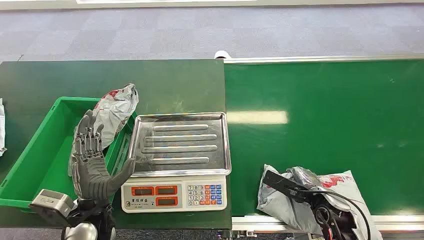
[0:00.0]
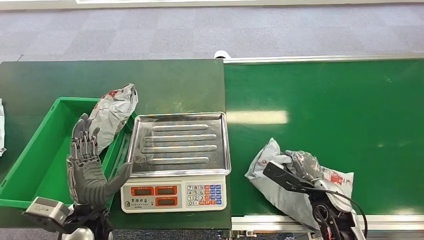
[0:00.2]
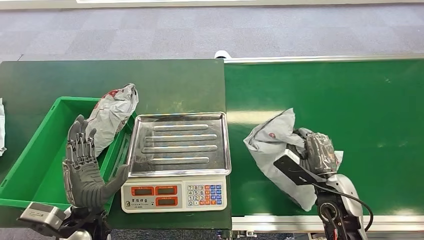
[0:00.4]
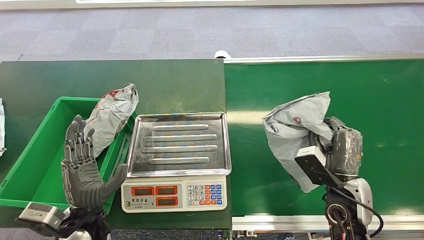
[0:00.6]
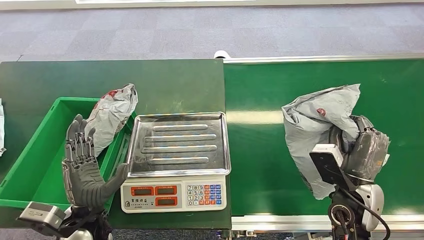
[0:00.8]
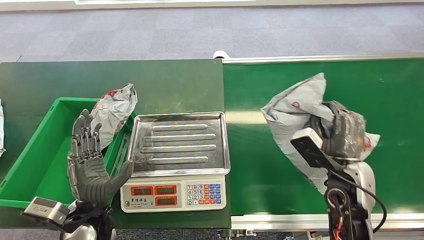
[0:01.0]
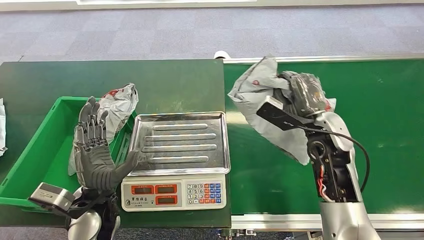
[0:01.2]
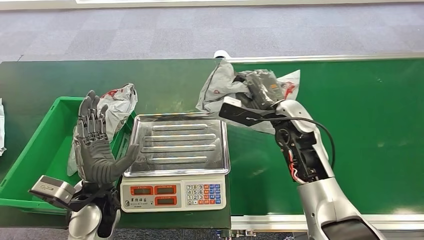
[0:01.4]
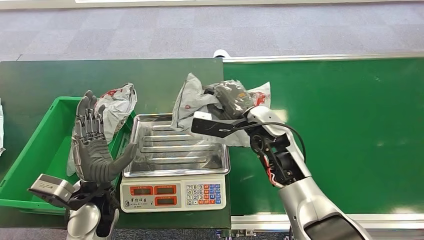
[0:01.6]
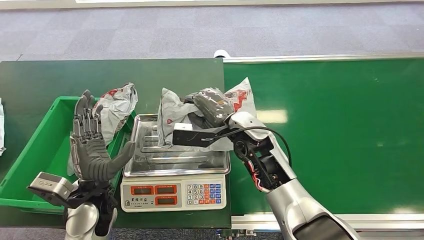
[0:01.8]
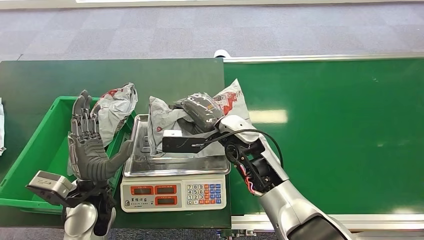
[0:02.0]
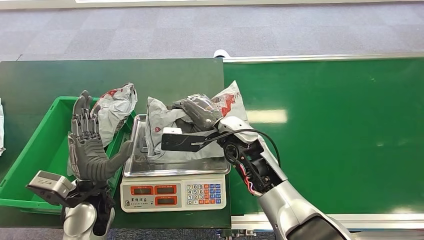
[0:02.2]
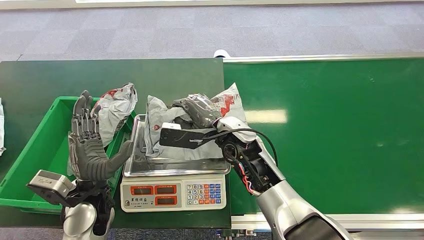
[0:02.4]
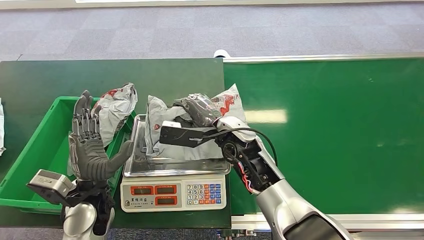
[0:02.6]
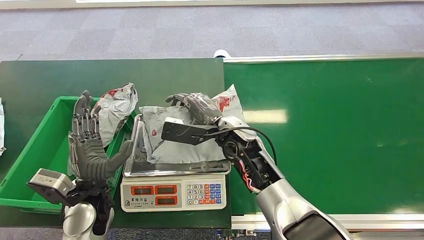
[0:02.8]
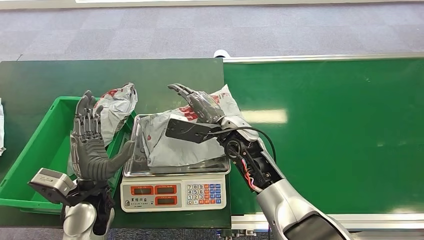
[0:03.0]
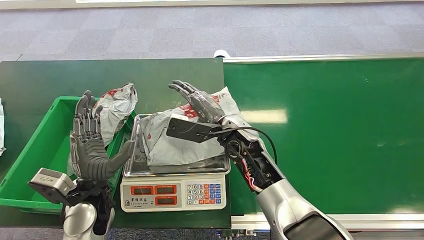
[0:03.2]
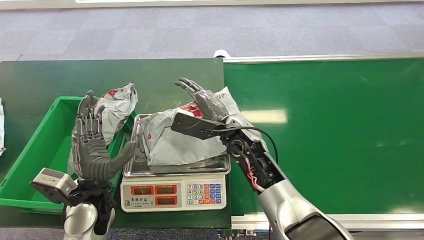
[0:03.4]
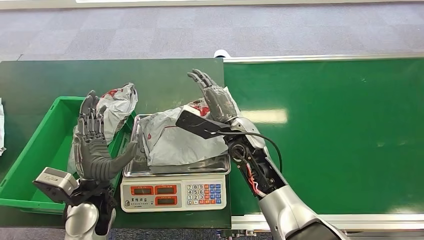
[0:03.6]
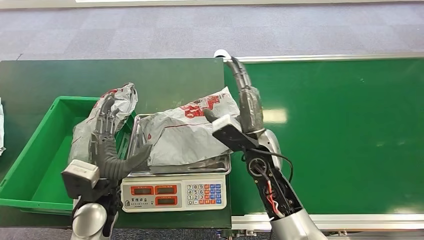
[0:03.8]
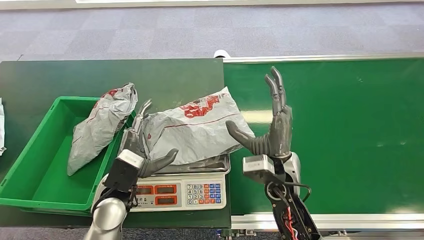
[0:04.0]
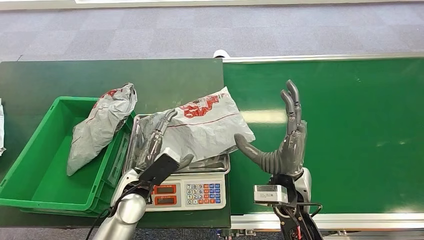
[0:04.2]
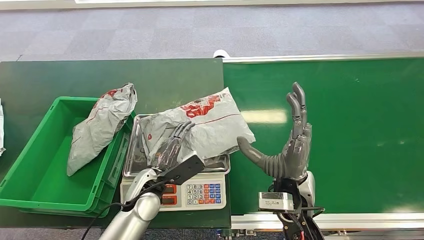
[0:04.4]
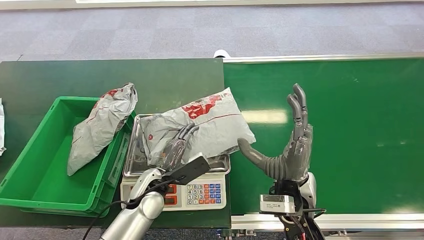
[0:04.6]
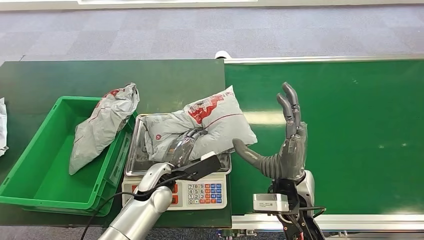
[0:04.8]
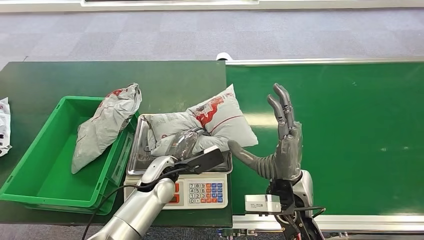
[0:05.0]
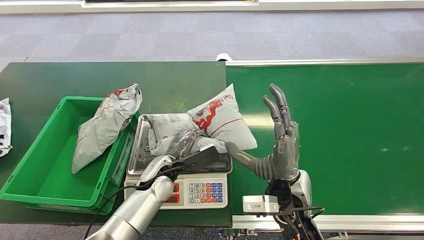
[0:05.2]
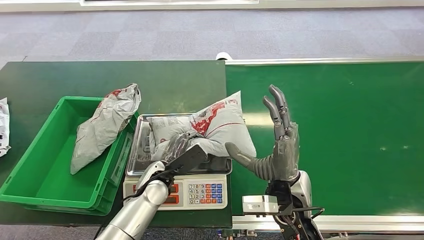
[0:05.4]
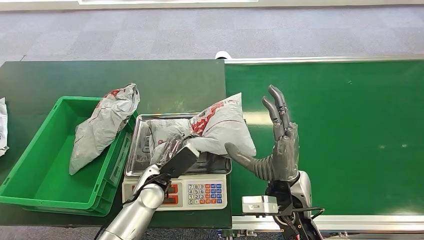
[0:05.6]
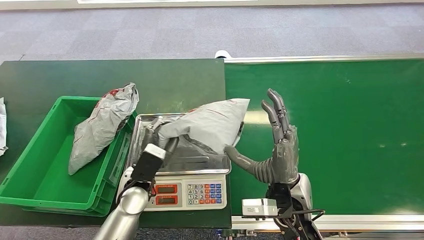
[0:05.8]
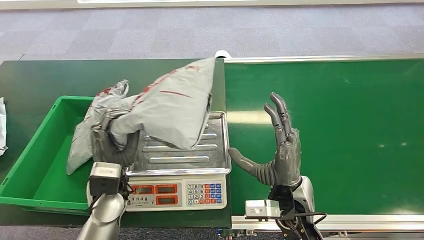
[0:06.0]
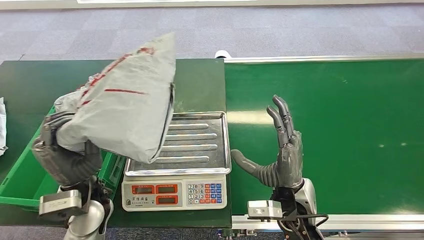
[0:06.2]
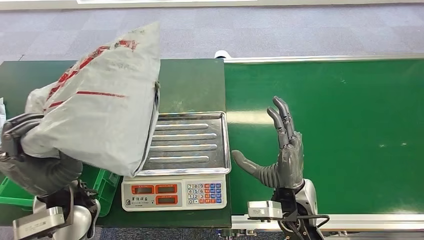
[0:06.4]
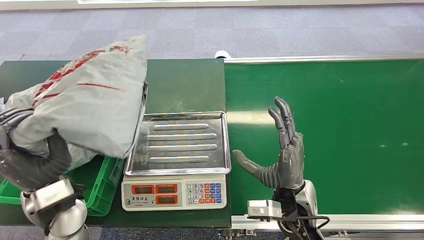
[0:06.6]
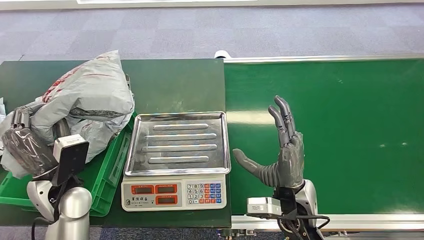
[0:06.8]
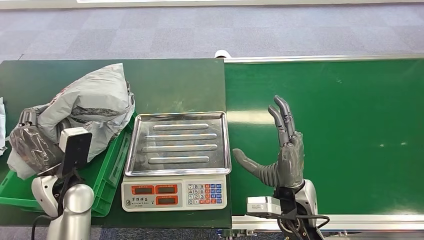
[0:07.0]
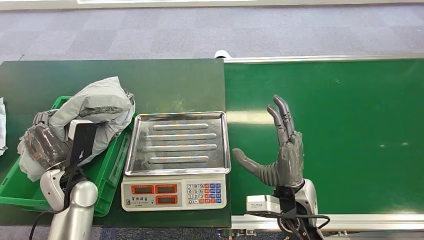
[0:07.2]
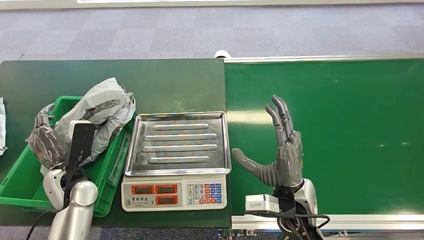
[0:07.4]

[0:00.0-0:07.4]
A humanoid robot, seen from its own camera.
Task of the whole recording: Weigh the package on the weighing device and place it in the left basket.
Step, 0:00.0 to 0:01.0: Pick up the package from the conveyor belt.
Step, 0:01.8 to 0:03.4: Place the package onto the inbound machine.
Step, 0:05.6 to 0:06.2: Pick up the package from the inbound machine.
Step, 0:06.8 to 0:07.4: Place the package into the parcel locker.
0:03.0 to 0:04.4: The left hand is displaced to the right and downward by roughly 10 cm. The right hand goes roughly 15 cm backward and to the right.
0:06.0 to 0:07.4: The left hand moves to the left, roughly 10 cm.

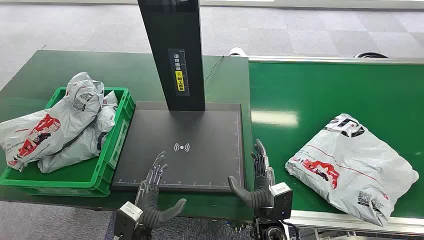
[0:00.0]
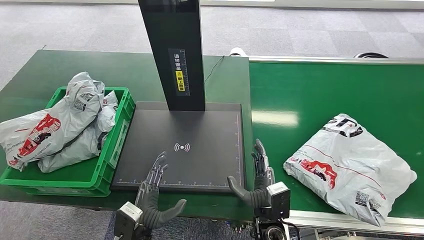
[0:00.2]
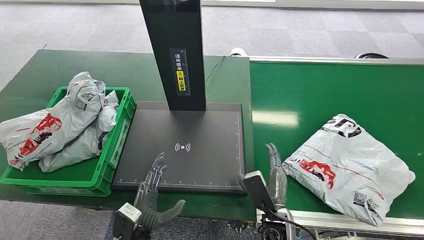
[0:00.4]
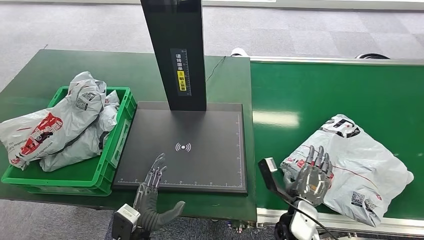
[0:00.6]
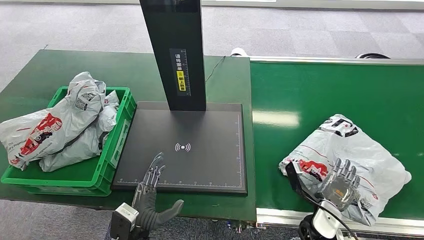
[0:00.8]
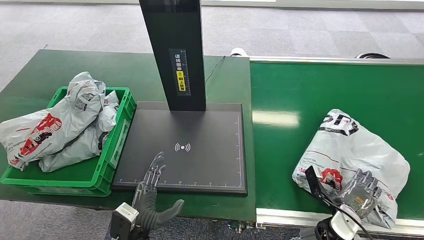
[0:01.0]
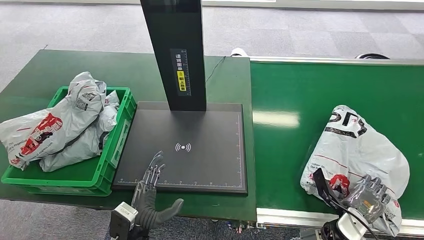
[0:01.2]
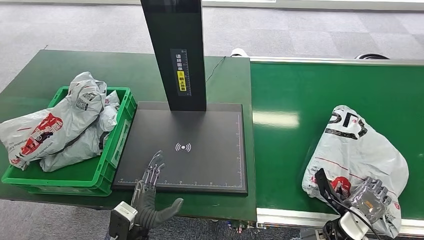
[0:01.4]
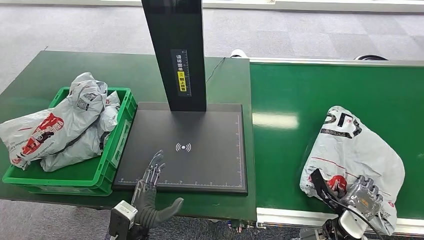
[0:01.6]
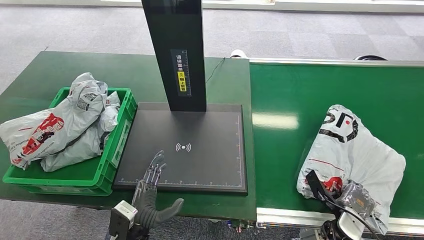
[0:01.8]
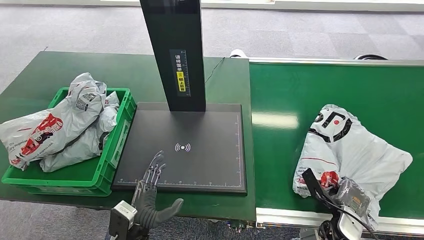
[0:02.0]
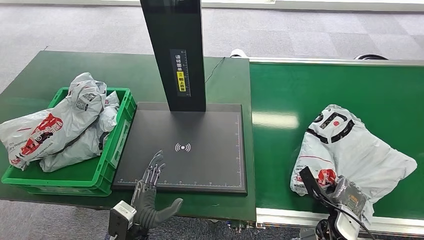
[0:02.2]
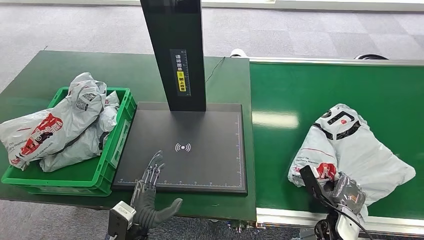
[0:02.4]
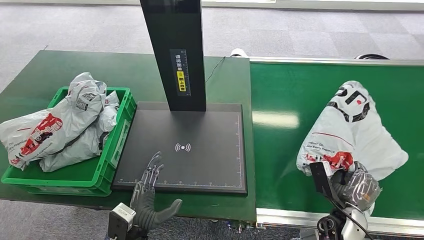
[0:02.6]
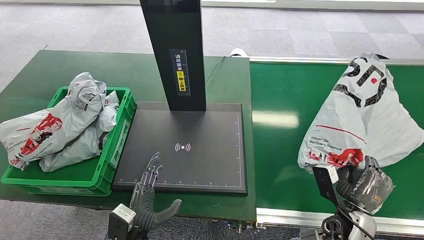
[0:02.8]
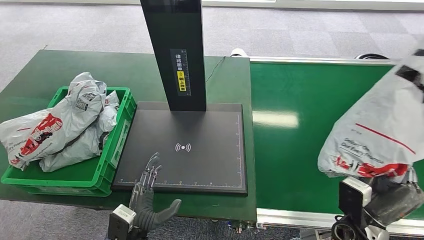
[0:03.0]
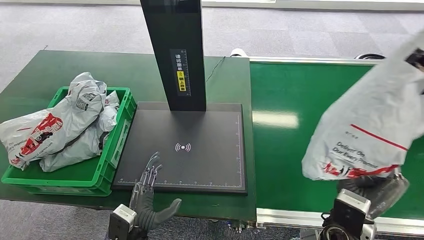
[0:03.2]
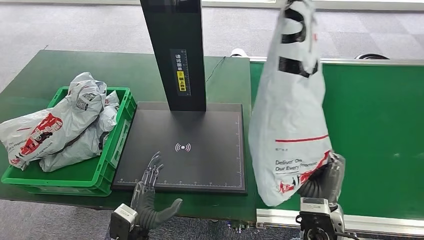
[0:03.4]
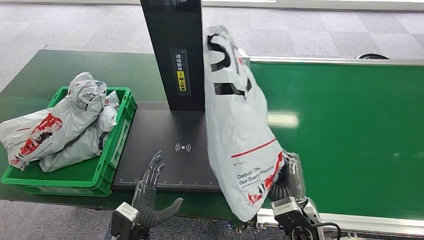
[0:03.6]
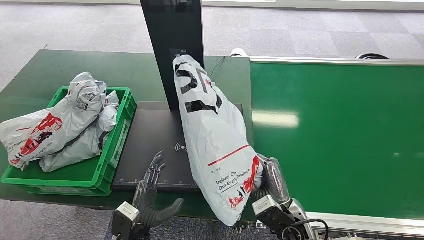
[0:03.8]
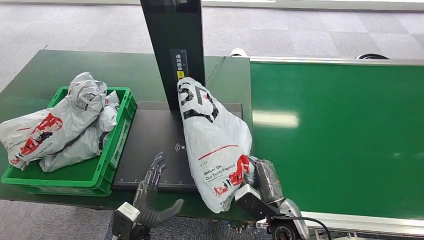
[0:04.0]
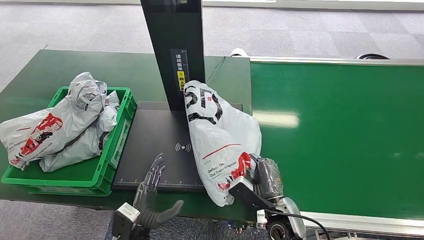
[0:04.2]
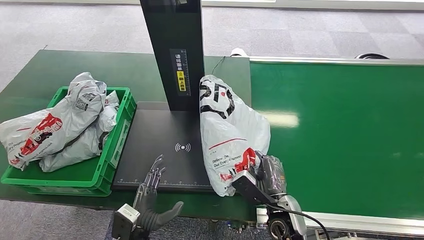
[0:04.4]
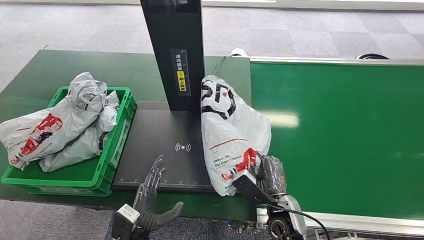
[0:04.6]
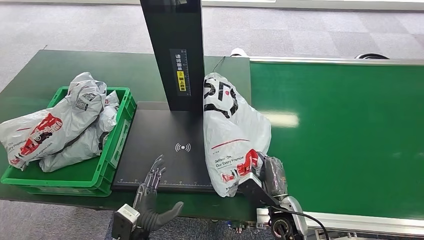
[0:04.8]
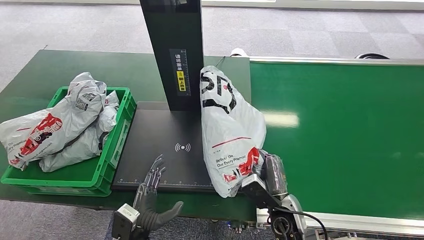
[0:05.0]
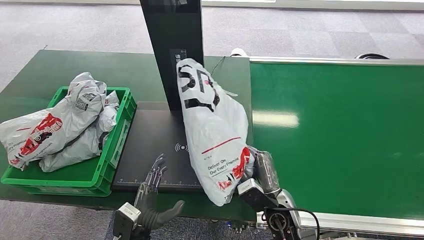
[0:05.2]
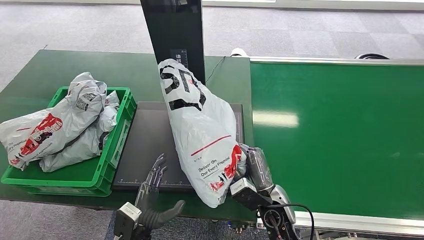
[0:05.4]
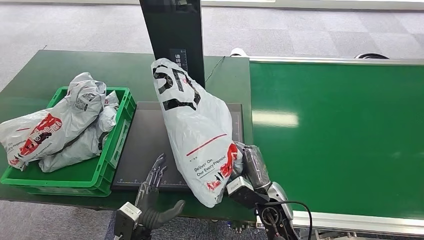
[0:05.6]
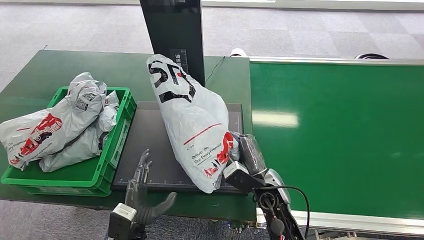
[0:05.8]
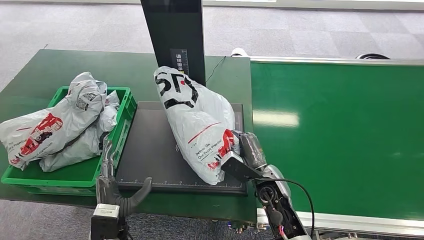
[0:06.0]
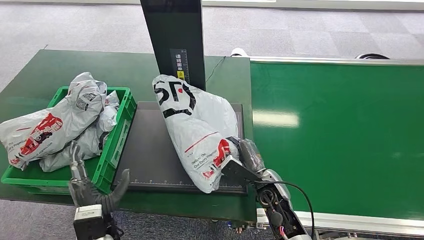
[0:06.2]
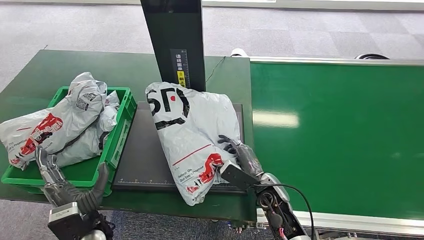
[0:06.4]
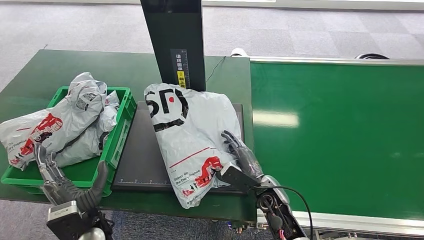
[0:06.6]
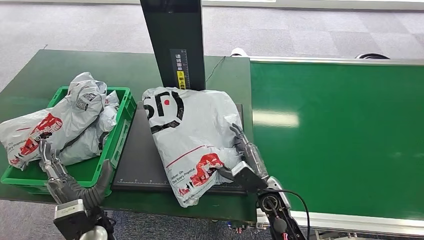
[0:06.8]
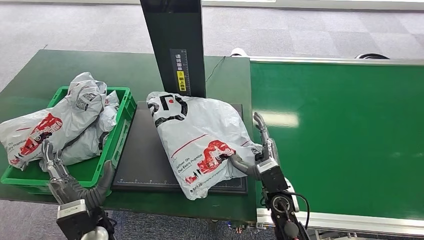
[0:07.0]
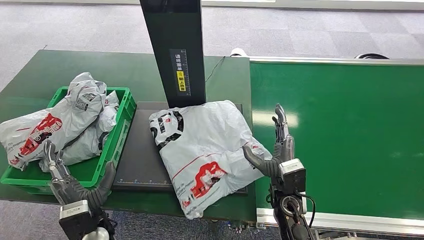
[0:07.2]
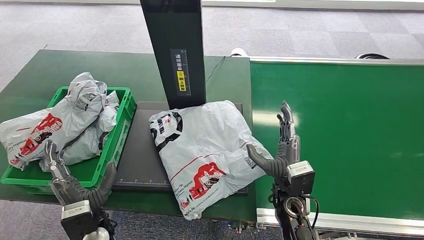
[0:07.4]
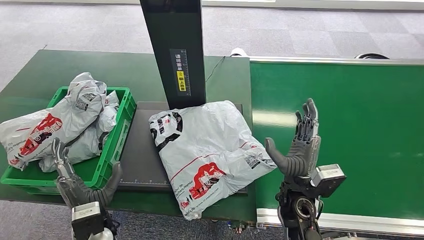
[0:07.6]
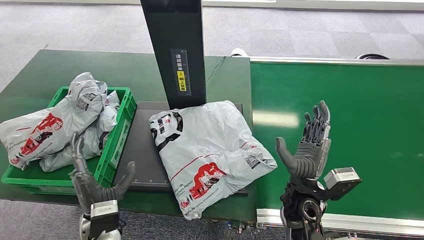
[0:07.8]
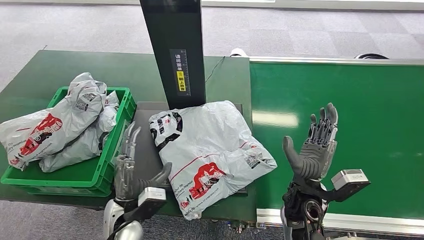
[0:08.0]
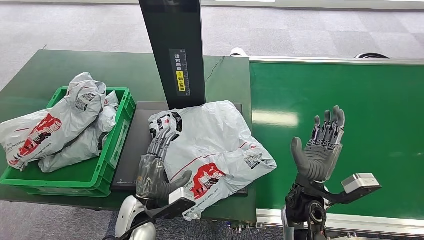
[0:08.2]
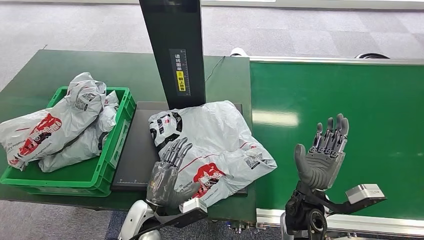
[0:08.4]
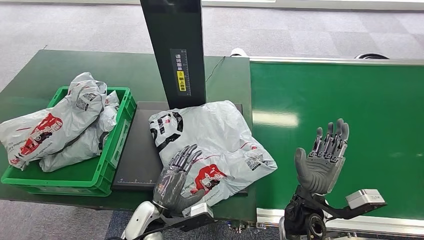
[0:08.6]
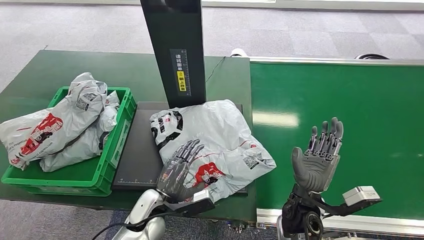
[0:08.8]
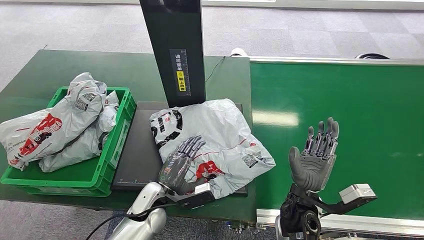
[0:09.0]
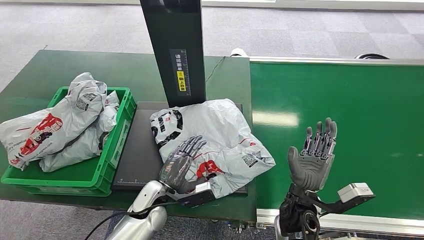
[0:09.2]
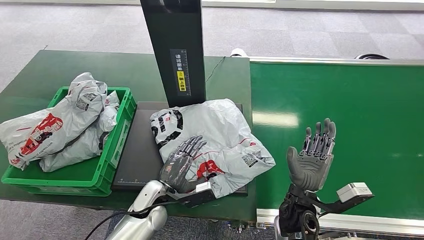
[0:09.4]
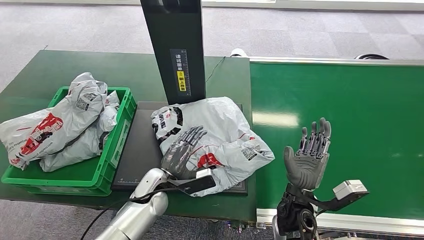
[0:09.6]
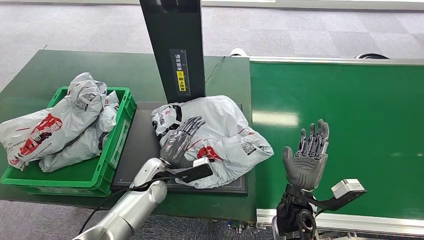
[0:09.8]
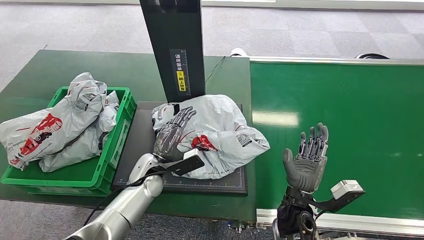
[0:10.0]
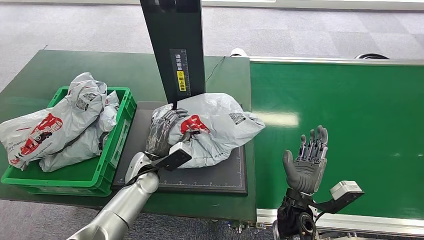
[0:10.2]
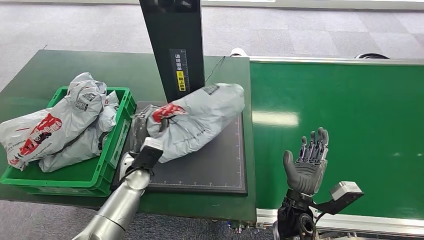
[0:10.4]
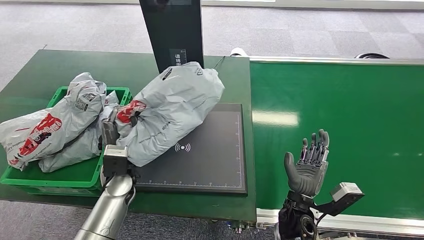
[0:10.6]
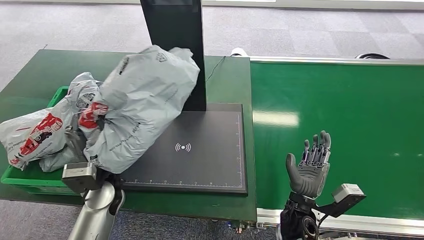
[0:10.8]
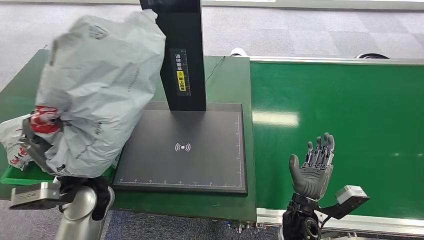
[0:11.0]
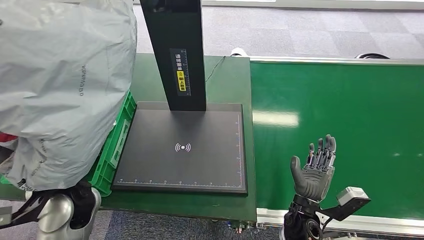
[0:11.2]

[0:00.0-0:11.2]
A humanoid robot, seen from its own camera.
Task of the whole recording: Weigh the package on the weighing device and place it in the left basket.
Step, 0:00.0 to 0:03.0: Pick up the package from the conveyor belt.
Step, 0:03.4 to 0:07.6: Place the package onto the inbound machine.
0:04.8 to 0:06.4: The left hand goes roughly 10 cm to the left and upward; the right hand shifts approximately 5 cm forward.
0:06.4 to 0:08.0: The right hand travels upward by about 10 cm. Meanwhile the left hand moves to the right, approximately 5 cm.
0:08.0 to 0:09.6: The left hand moves forward, approximately 10 cm.
